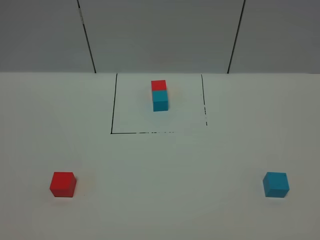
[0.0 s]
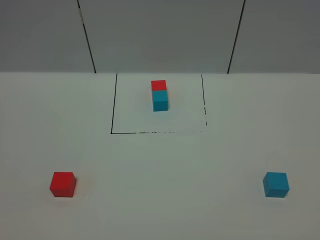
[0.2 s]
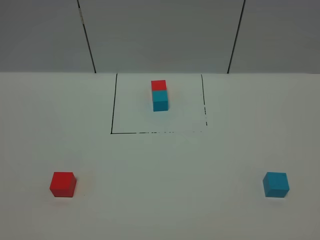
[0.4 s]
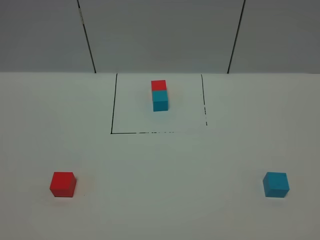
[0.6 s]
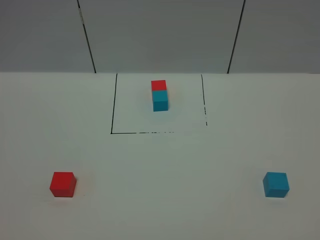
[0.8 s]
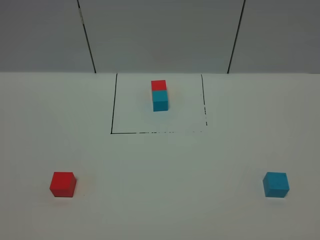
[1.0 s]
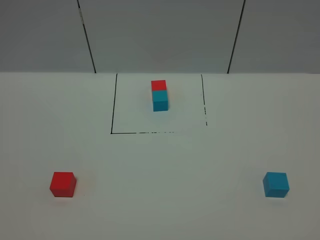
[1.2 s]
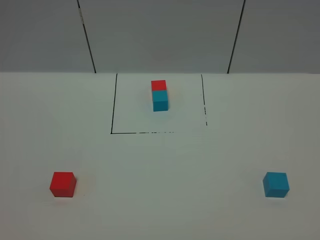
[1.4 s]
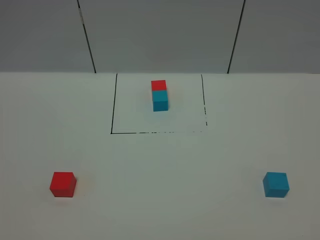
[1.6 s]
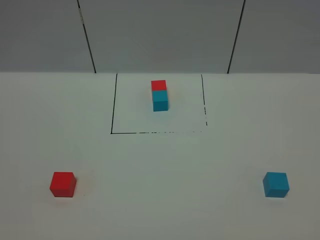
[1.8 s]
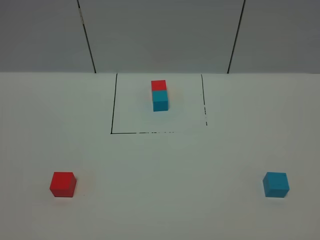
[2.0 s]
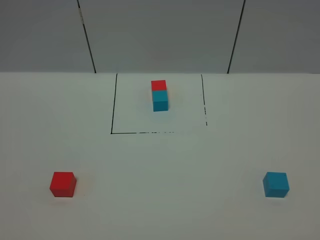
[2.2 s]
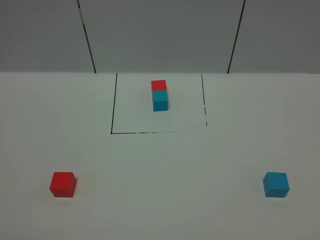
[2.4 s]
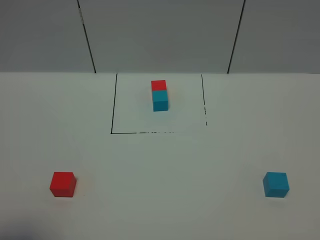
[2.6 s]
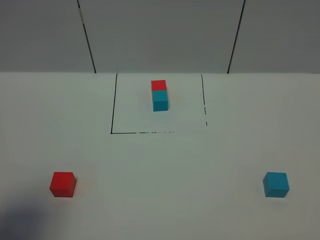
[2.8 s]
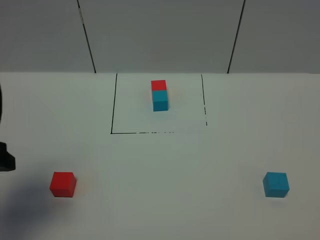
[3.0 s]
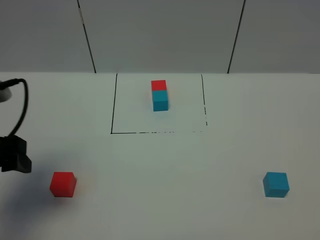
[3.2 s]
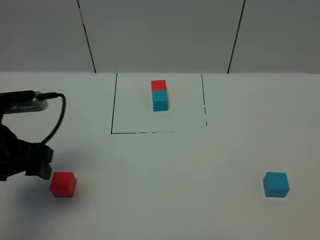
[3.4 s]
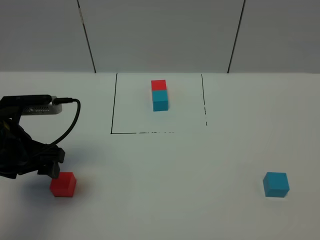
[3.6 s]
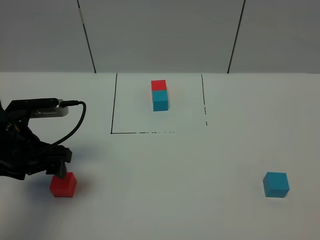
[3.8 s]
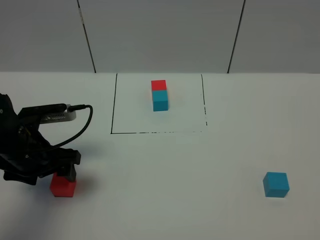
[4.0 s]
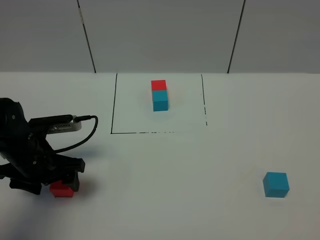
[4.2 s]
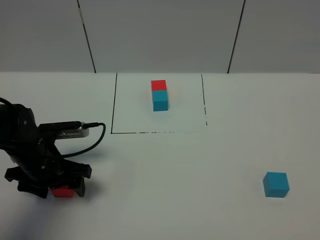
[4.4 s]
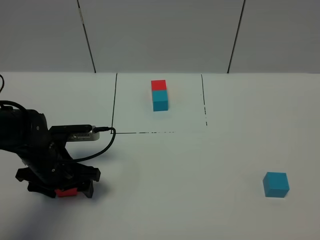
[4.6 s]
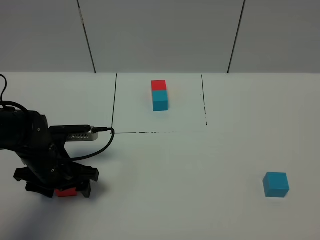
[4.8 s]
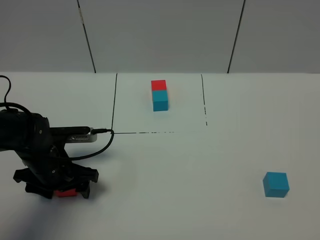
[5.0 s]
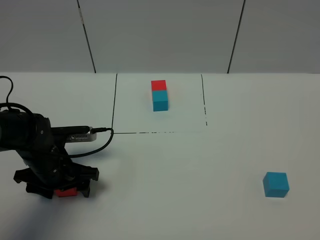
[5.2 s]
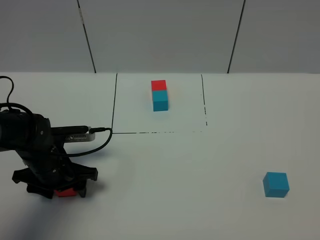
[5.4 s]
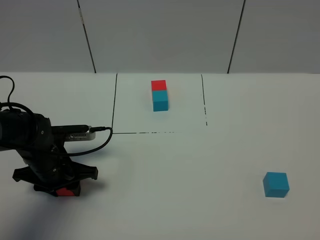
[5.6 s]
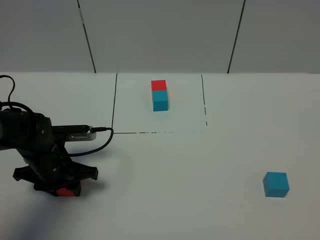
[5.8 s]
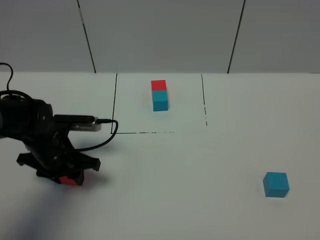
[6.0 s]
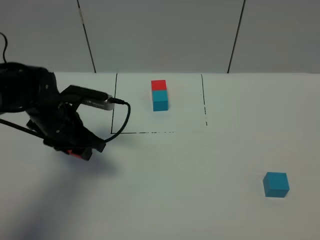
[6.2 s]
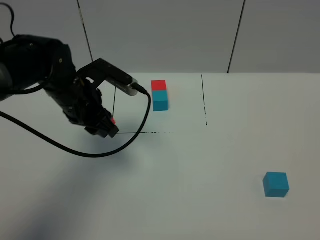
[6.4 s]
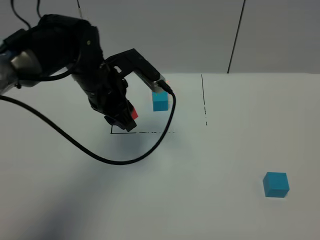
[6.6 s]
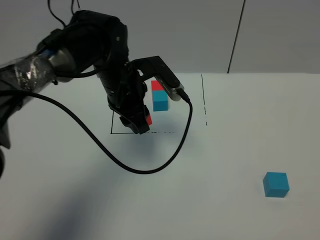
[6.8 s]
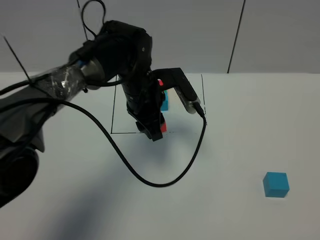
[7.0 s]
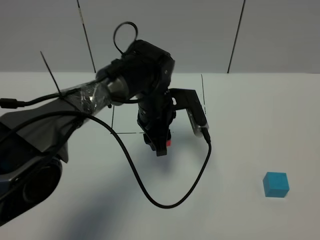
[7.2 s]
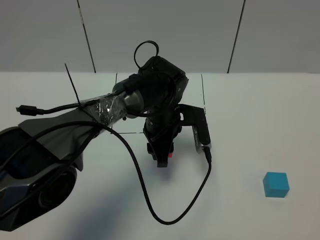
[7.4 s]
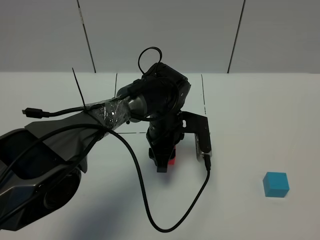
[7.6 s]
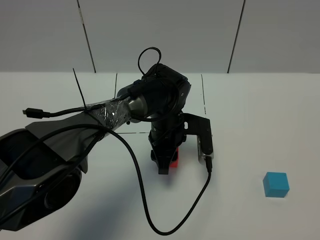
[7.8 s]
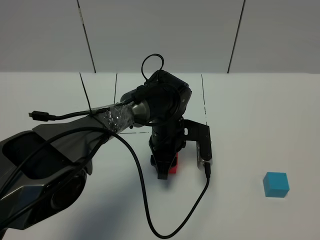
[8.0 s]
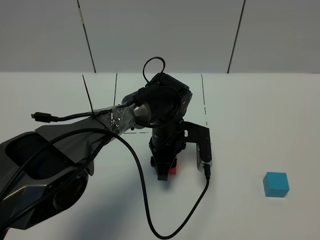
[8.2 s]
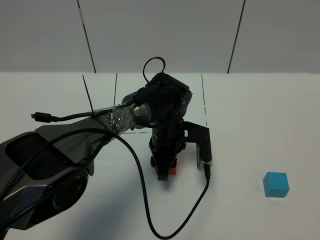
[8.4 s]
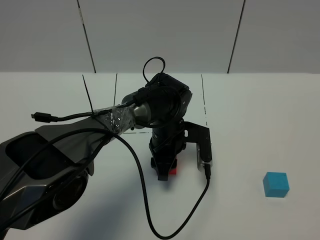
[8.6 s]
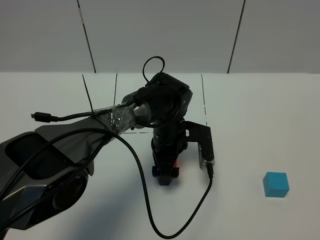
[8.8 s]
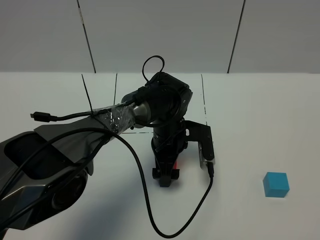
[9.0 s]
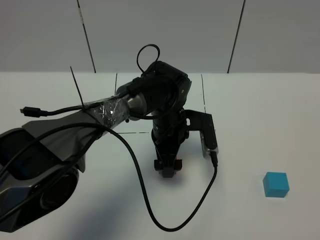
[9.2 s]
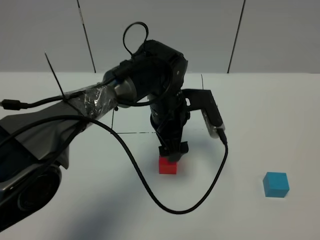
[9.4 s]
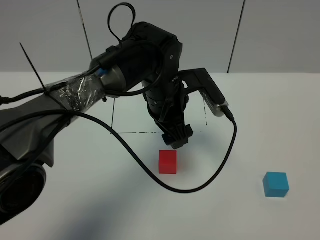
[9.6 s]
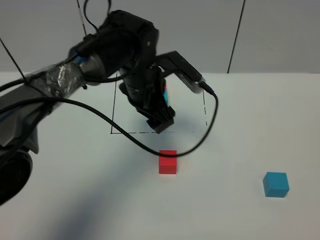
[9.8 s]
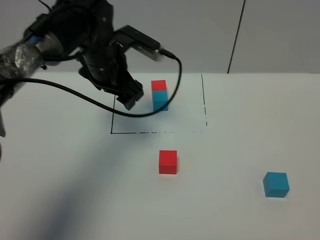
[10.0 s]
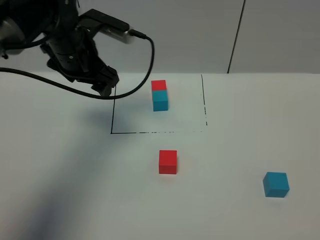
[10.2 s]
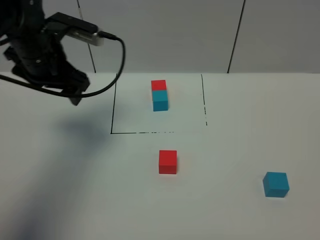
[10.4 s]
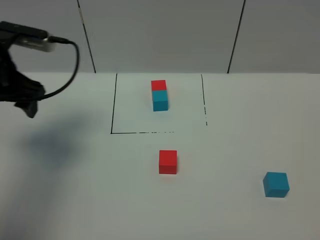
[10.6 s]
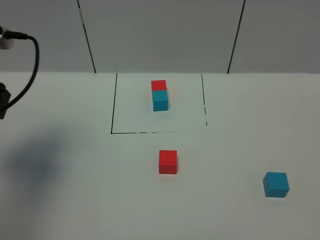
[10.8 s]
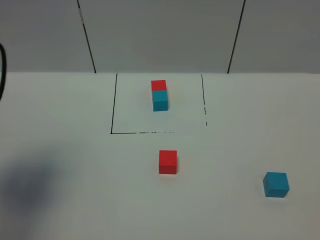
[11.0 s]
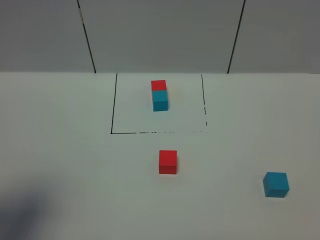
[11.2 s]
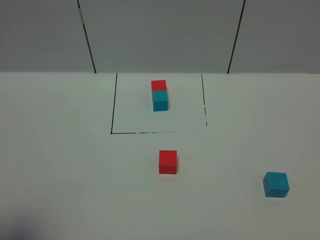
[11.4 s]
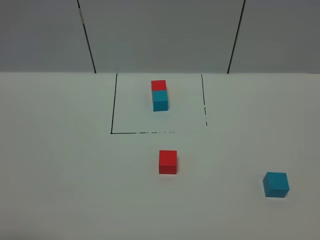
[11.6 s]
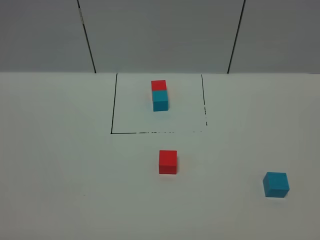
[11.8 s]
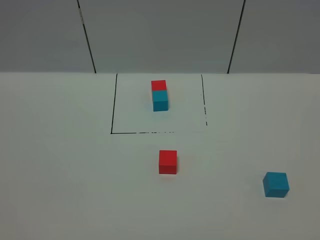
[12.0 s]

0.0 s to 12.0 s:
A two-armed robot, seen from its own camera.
Task of the whole recording: According to the building block template in front, assemble the scattered blocks together.
Step, 3.0 to 9.2 s: Put the red cube in the center of the table.
0.0 to 1.6 s: Both grippers stay put.
1.6 to 3.0 s: The left gripper moves forward, roughly 20 cm.
3.0 to 4.4 s: The left gripper shifts about 20 cm downward, forward and to the right.
4.4 to 6.0 s: The left gripper closes up.
6.0 to 7.6 s: The left gripper moves to the right, roughly 20 cm.
7.6 to 9.0 s: The left gripper opens its fingers.
9.0 to 10.4 s: The left gripper goes roughly 30 cm to the left and upward.
10.4 to 12.0 s: The left gripper travels backward by approximately 40 cm.

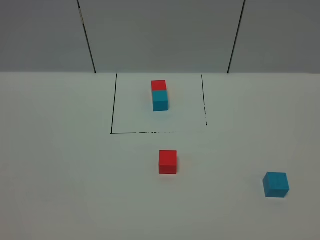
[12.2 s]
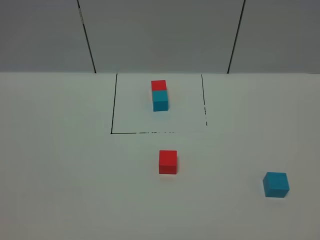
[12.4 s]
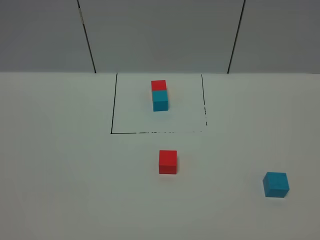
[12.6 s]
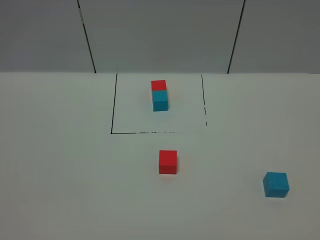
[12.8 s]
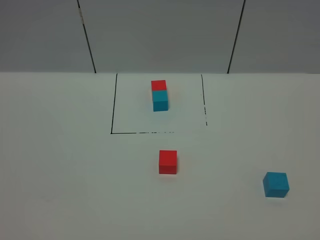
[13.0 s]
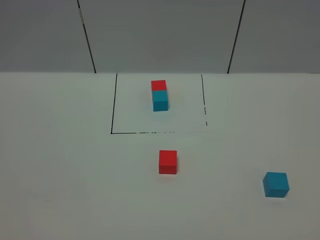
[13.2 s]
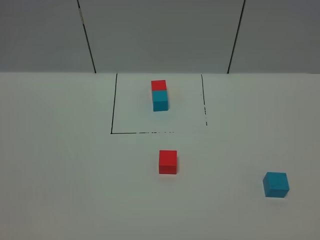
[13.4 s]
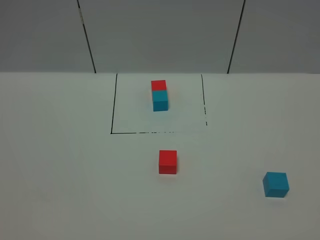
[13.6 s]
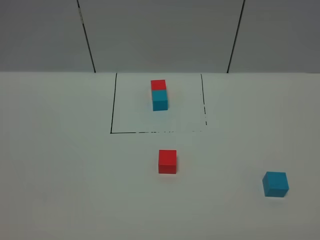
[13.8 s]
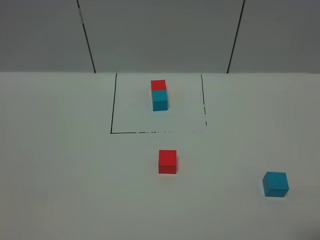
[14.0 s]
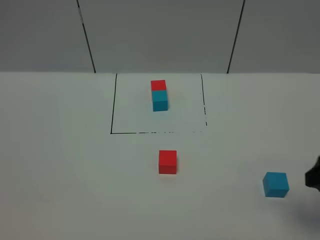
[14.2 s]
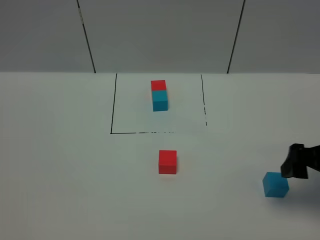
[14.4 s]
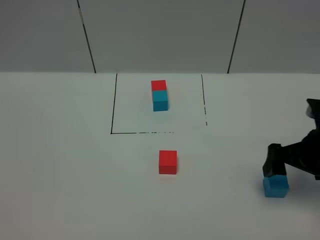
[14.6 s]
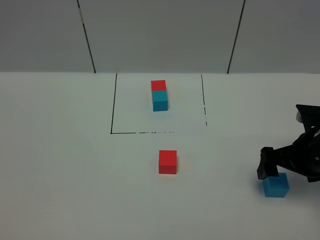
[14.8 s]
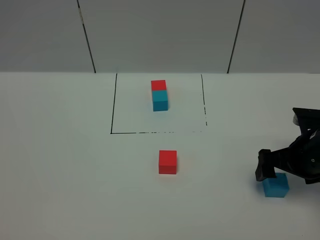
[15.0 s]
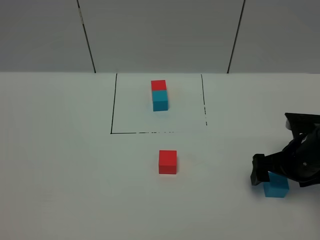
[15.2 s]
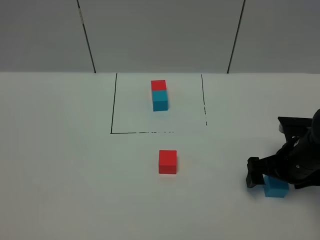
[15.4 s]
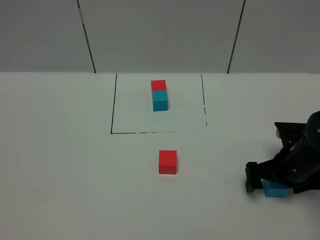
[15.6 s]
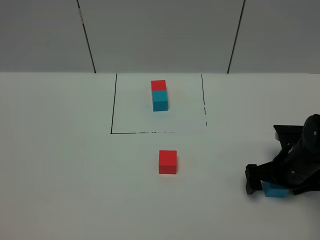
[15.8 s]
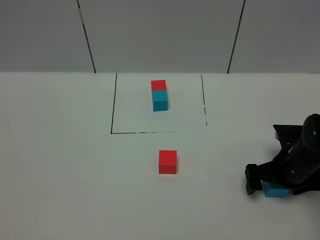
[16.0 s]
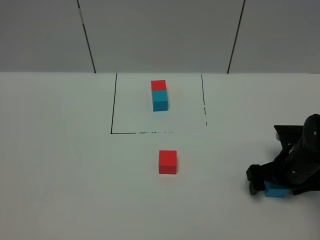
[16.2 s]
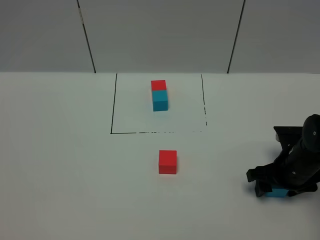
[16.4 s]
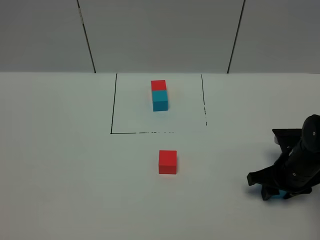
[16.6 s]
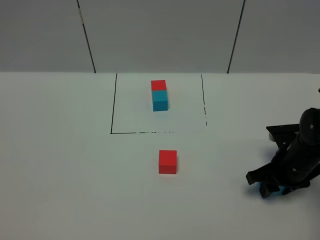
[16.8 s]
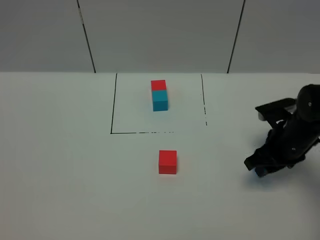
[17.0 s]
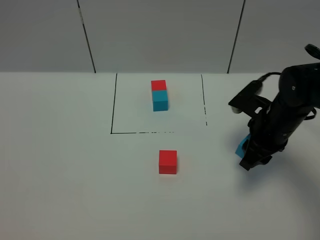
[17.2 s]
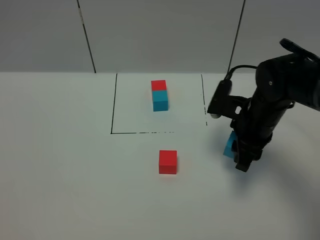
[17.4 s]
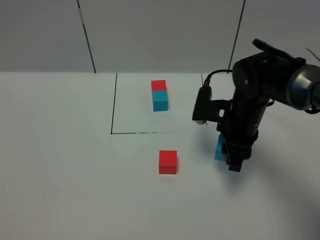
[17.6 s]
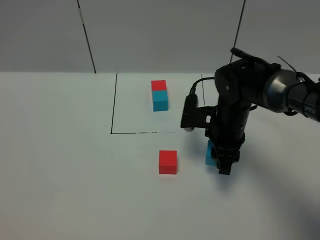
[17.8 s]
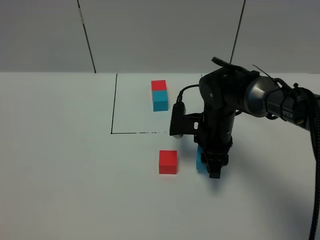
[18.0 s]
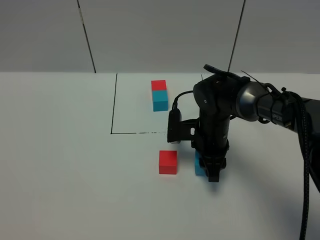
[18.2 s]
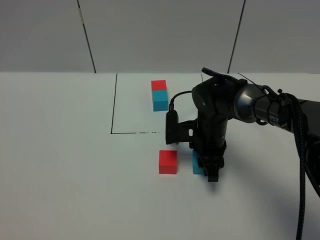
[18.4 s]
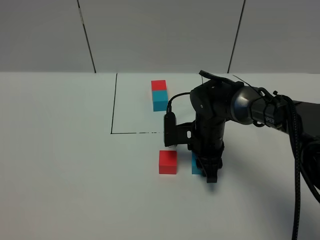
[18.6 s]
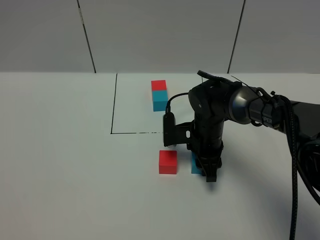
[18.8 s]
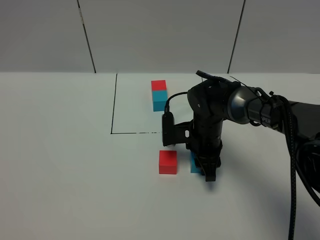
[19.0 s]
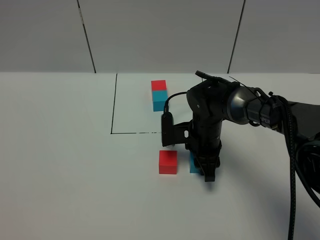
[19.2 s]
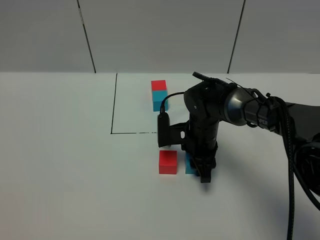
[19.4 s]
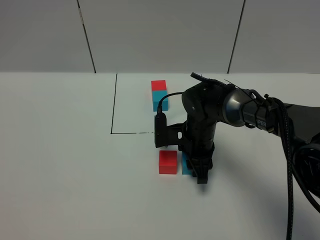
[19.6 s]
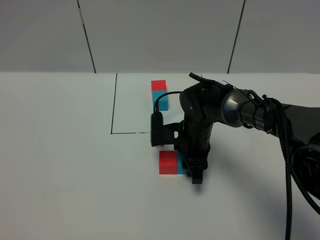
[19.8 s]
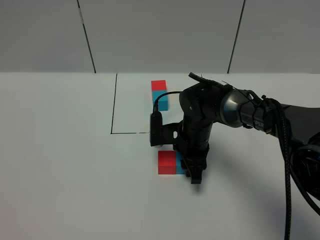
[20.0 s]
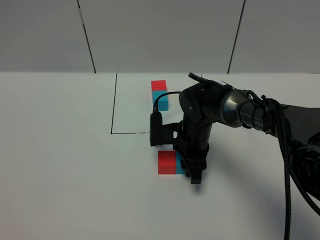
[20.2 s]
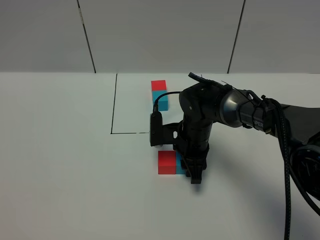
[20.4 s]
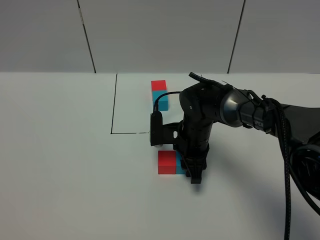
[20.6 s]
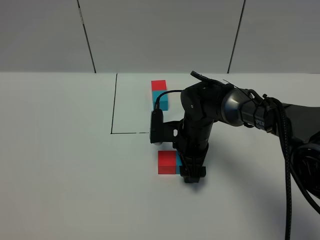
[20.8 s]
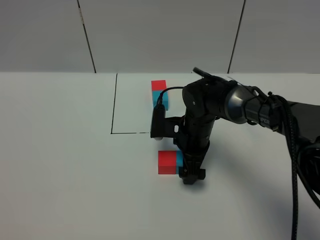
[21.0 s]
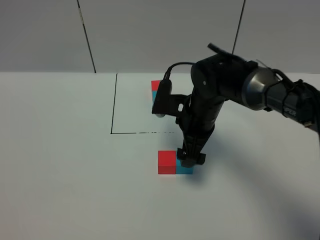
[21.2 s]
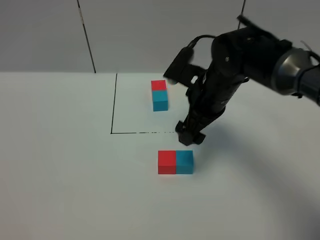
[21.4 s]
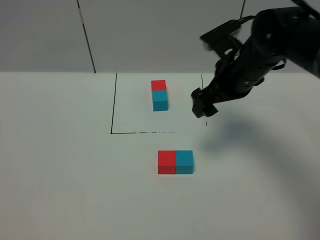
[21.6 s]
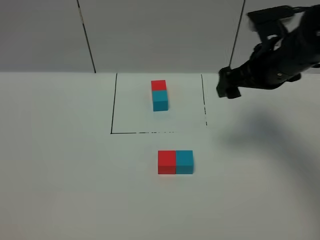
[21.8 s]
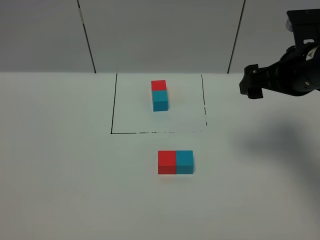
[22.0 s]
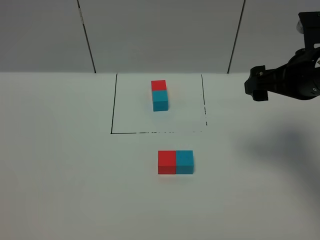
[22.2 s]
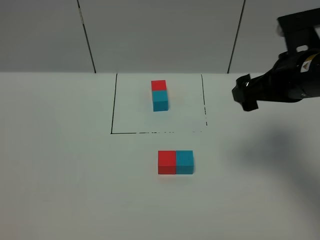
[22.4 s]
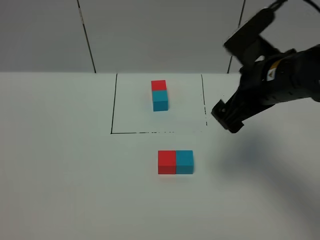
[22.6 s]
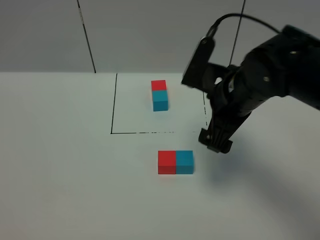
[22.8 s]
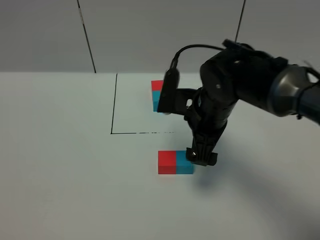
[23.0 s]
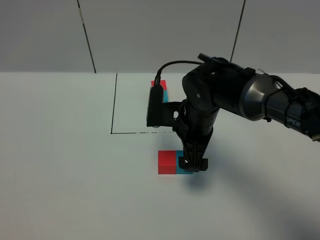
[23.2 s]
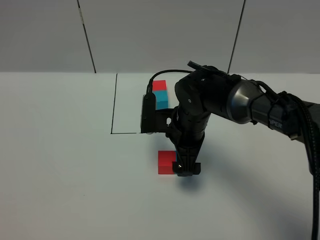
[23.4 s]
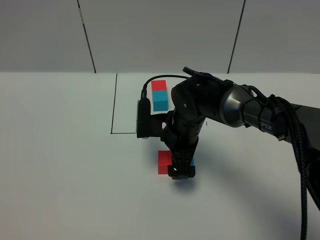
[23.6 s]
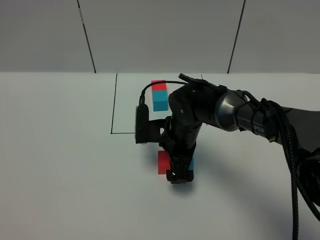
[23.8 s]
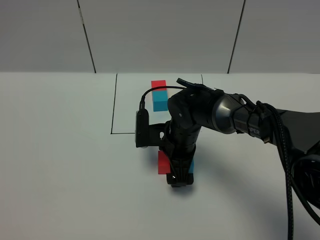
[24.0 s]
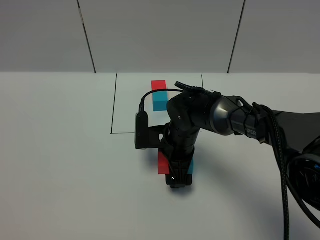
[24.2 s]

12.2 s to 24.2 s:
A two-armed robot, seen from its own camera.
Task of the whole recording: According to the building block template in front, assemble the scattered blocks together.
Step, 12.2 to 21.0 s: Put the blue cube on the right of the red cube.
13.8 to 15.2 s: The right gripper shifts some 30 cm forward and downward.
15.2 to 16.6 s: The right gripper closes its fingers.
16.6 to 18.2 s: The right gripper travels to the left and forward by about 15 cm.
18.2 to 19.8 s: There are only small adjustments of the grippers.
19.8 to 21.2 s: The right gripper heads upward, covering approximately 10 cm, and opens up.
21.2 to 22.6 s: The right gripper travels upward, to the right and backward by some 15 cm.
22.6 to 24.2 s: The right gripper goes about 20 cm downward and to the left.
